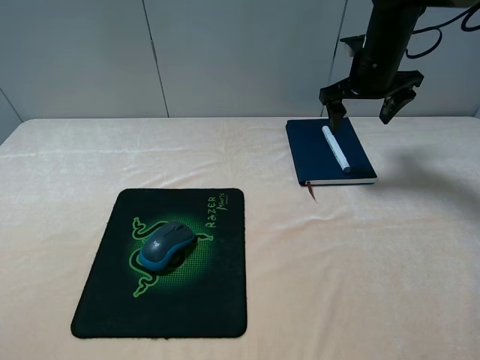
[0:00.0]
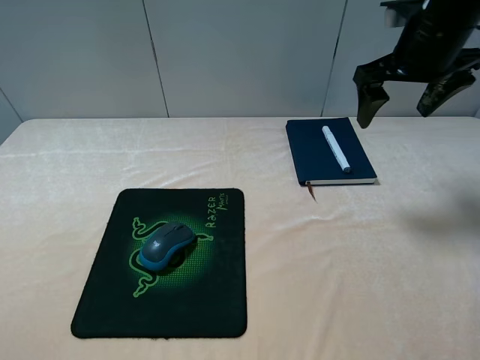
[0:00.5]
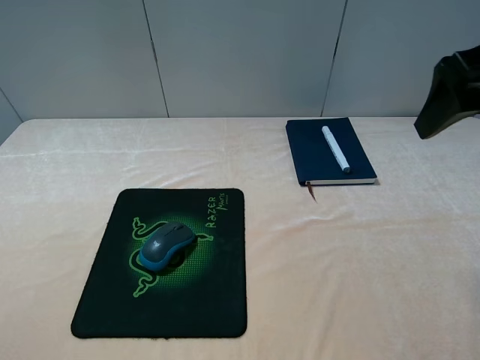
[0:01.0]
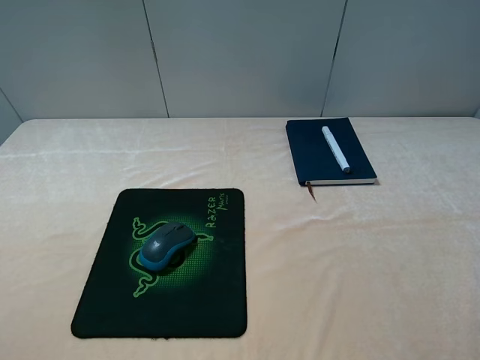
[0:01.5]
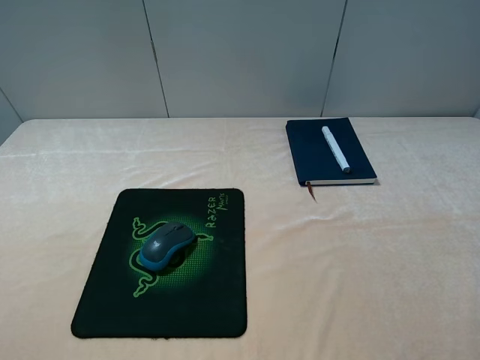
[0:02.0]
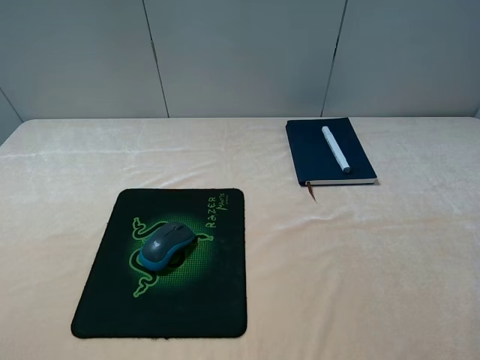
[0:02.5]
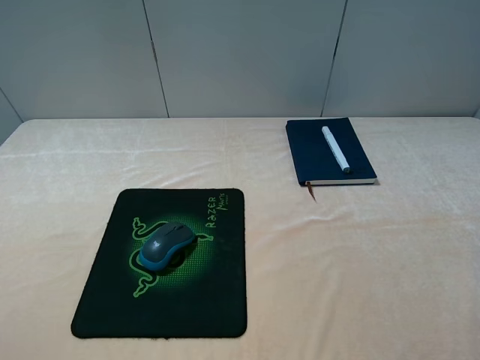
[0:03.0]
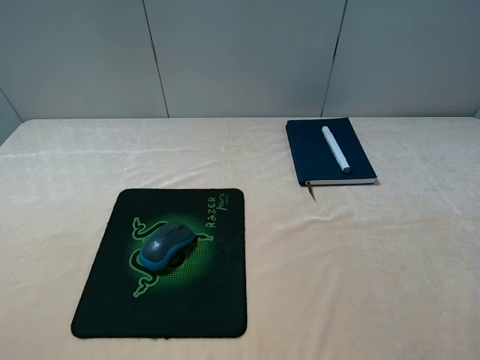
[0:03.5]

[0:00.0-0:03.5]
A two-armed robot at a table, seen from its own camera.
0:00.0 to 0:02.0: The right gripper travels backward by about 40 cm.
